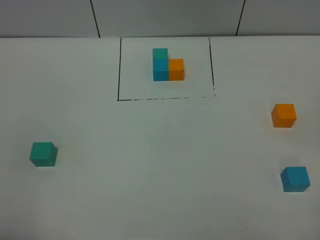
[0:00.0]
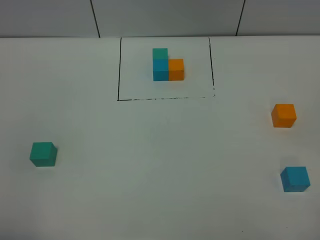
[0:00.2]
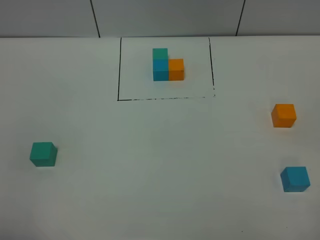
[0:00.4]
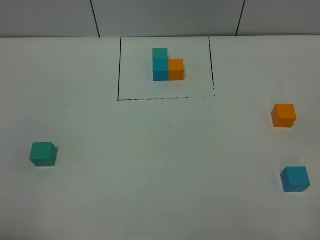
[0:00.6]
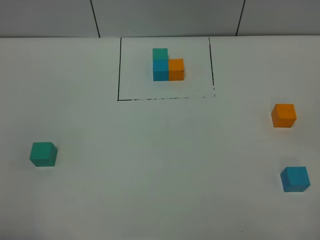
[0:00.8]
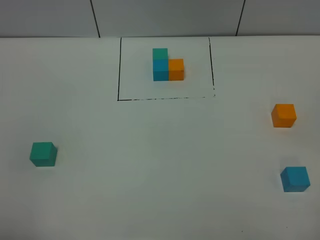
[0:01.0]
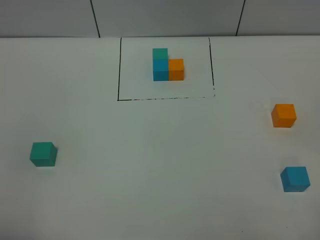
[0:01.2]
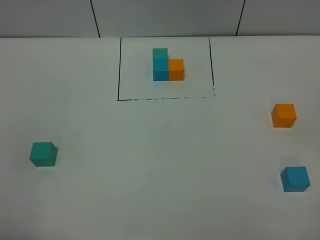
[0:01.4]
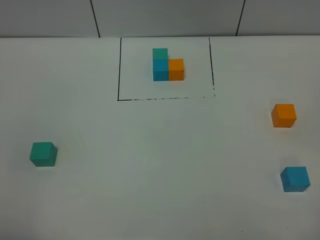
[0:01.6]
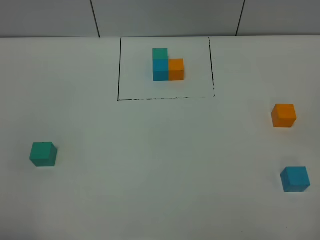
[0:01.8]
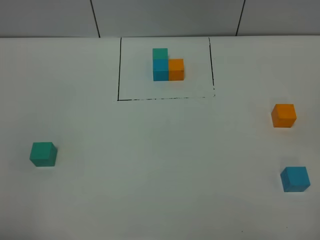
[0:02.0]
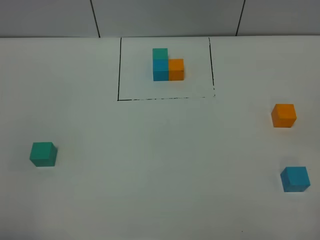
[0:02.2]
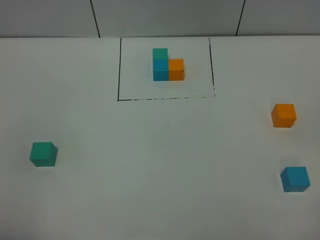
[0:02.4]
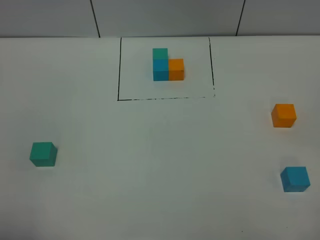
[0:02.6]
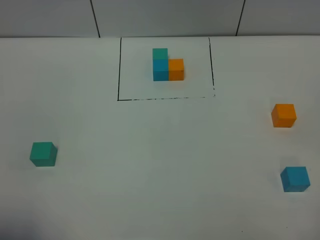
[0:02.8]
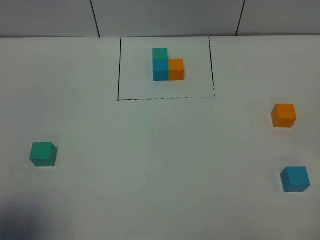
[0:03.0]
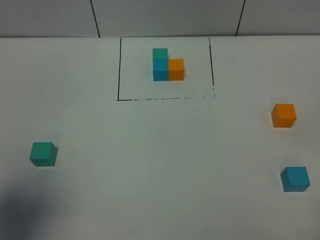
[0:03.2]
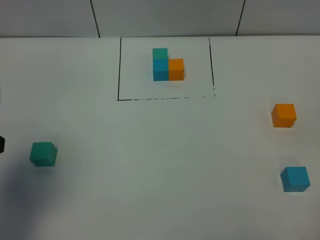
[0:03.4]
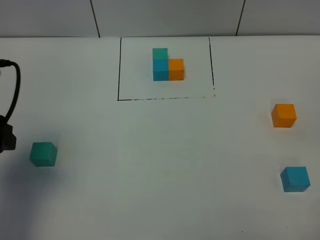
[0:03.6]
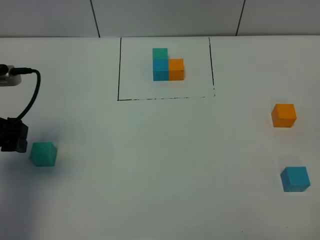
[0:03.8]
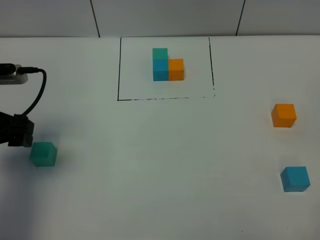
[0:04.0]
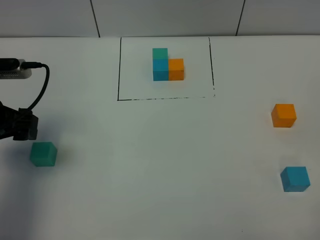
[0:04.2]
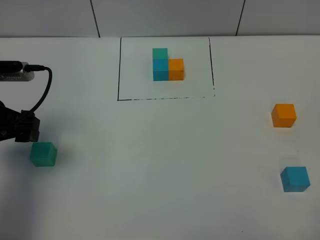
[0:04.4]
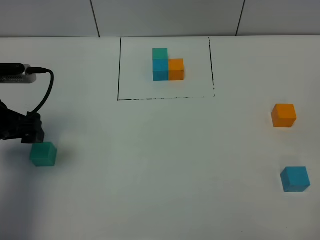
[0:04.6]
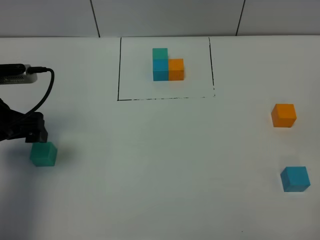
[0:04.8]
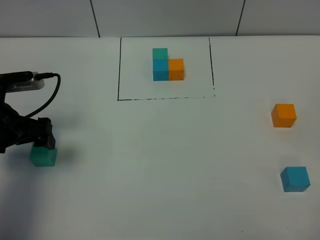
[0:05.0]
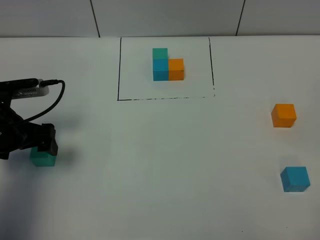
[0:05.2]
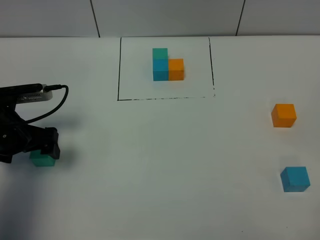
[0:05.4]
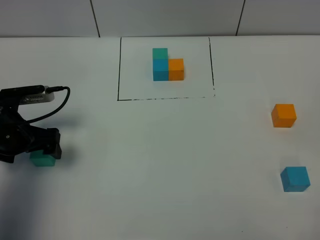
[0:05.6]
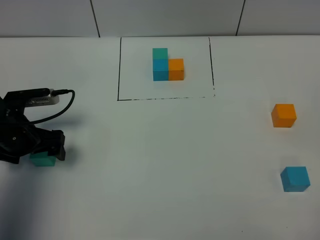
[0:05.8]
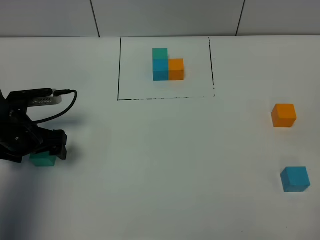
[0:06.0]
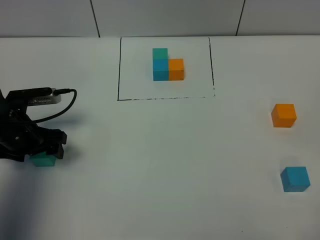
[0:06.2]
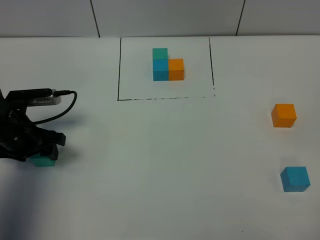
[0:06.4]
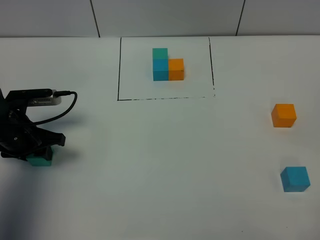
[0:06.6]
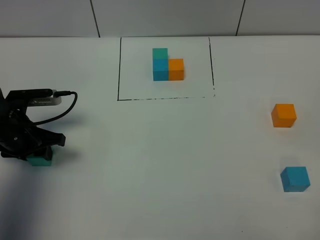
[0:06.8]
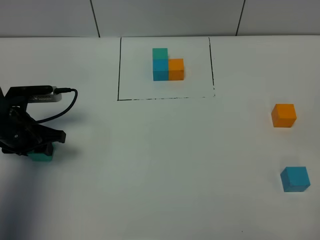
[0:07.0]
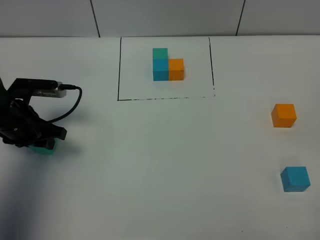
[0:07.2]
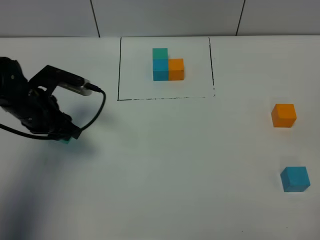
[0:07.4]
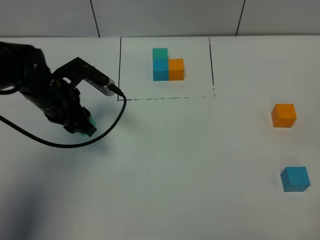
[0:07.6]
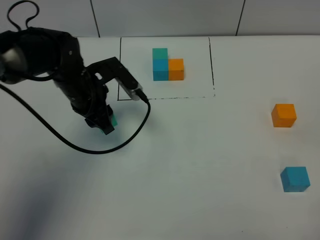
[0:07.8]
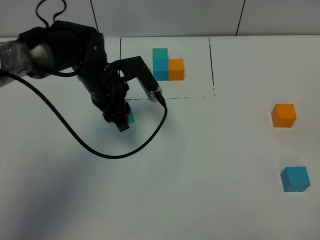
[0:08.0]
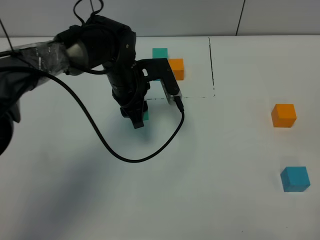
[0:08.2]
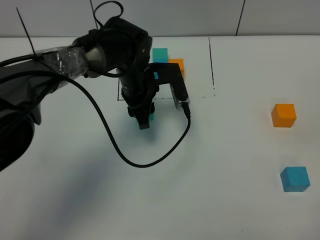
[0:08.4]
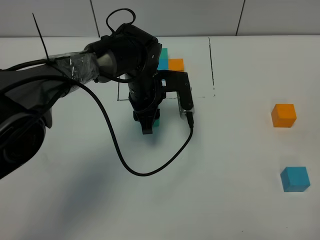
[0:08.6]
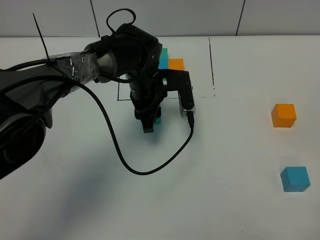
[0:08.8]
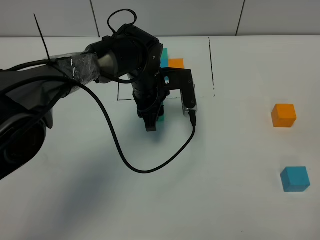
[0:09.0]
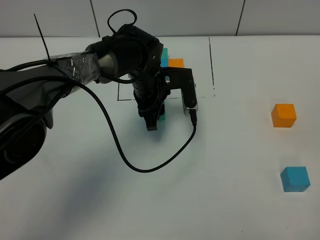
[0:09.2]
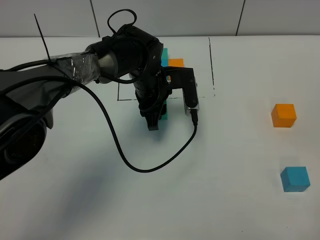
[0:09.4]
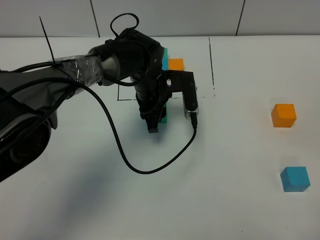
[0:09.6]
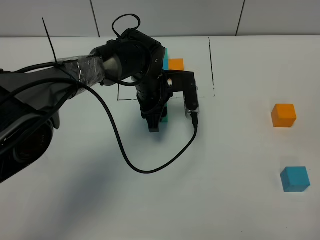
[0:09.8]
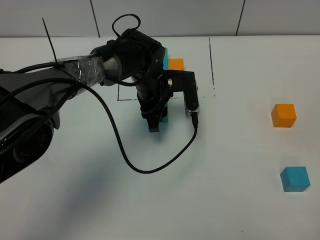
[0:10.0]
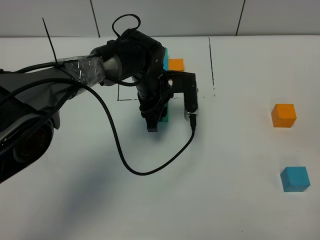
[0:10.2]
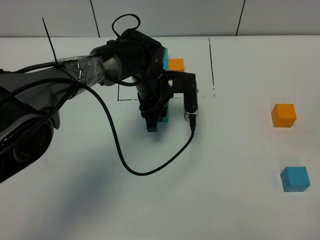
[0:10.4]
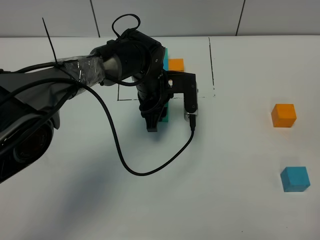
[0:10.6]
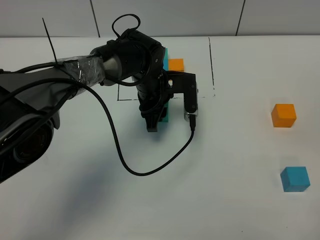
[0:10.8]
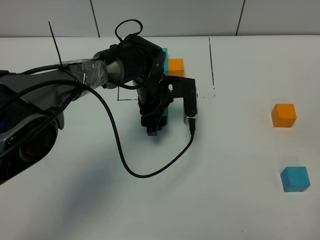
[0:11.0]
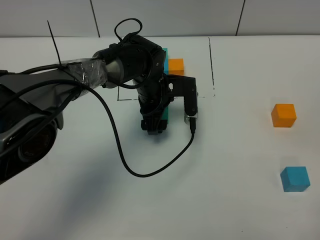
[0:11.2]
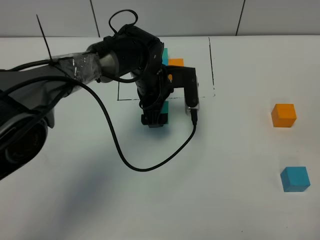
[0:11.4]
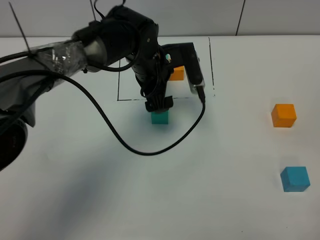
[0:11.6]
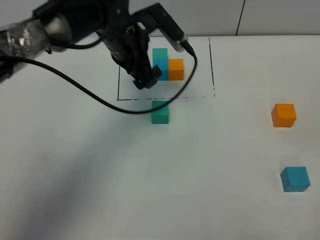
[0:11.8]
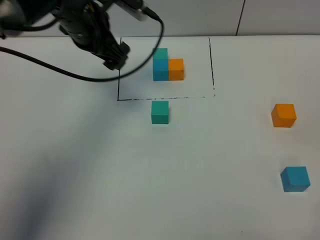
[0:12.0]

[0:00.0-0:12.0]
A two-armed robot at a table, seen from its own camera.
Task of the whole recording: According to the building block template in front, assemble the scattered blocks together.
Step, 0:00.0 to 0:11.0: Put the green build block in the center of the table.
0:00.0 to 0:01.6: The two grippers keep their place.
0:01.6 to 0:03.0: The left gripper travels forward by about 10 cm.
0:03.0 to 0:04.4: The left gripper moves forward and downward, some 20 cm.
0:04.4 to 0:06.0: The left gripper travels downward by approximately 10 cm.
0:06.0 to 0:07.6: The left gripper goes approximately 10 cm to the right, and closes up.
0:07.6 to 0:09.0: The left gripper goes approximately 15 cm to the right.
0:09.0 to 0:10.4: The grippers make only small movements.
0:10.4 to 0:12.0: The left gripper travels upward and to the left by approximately 20 cm, and opens its fingers.

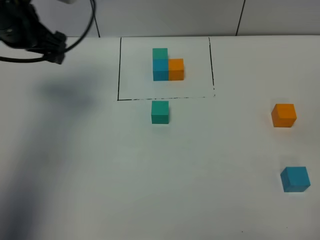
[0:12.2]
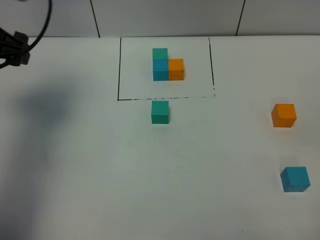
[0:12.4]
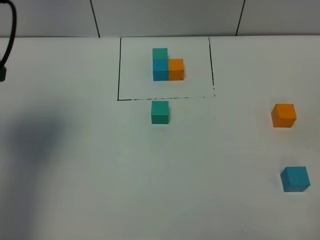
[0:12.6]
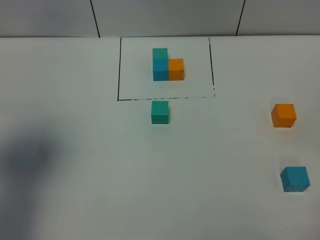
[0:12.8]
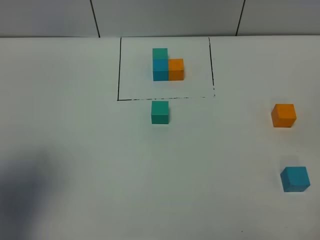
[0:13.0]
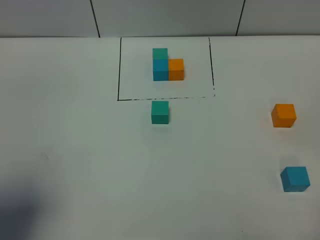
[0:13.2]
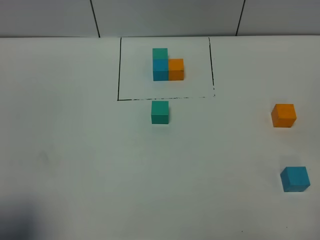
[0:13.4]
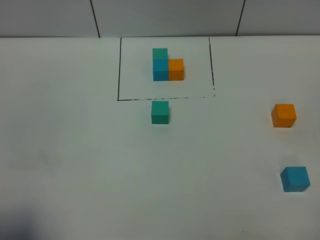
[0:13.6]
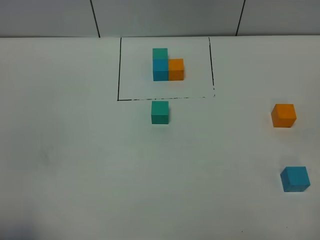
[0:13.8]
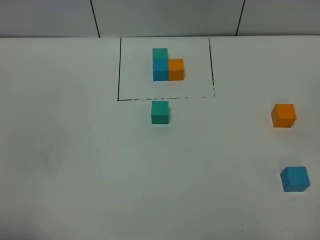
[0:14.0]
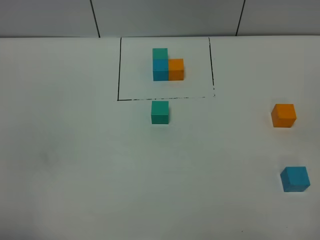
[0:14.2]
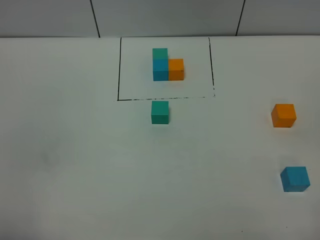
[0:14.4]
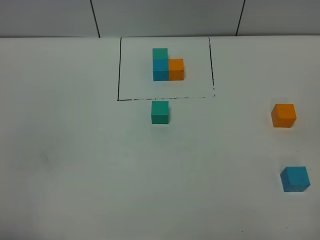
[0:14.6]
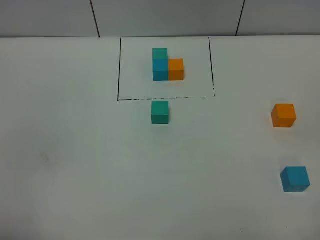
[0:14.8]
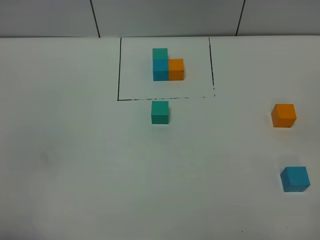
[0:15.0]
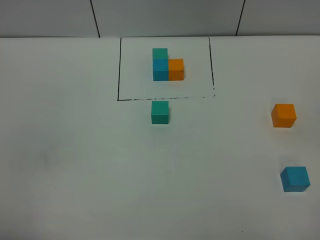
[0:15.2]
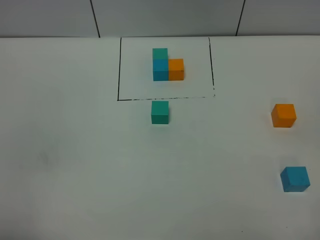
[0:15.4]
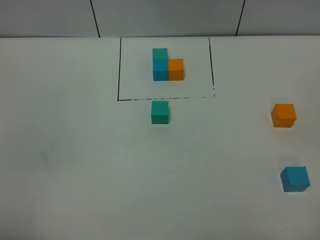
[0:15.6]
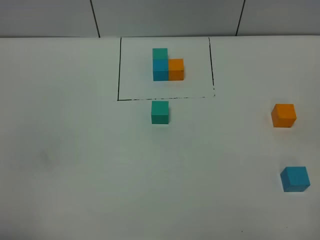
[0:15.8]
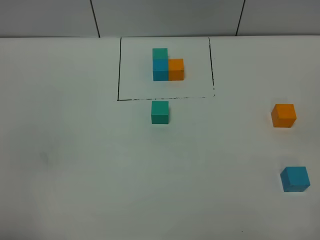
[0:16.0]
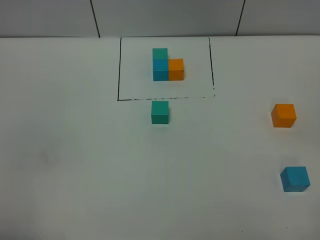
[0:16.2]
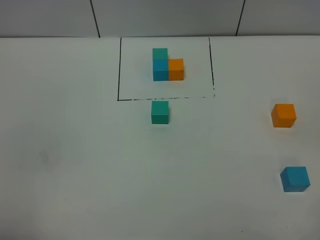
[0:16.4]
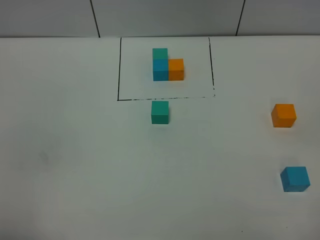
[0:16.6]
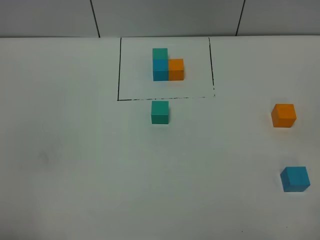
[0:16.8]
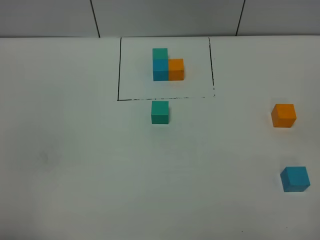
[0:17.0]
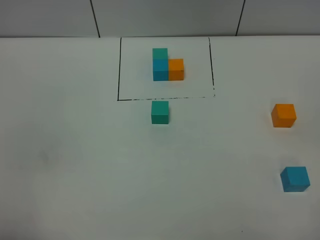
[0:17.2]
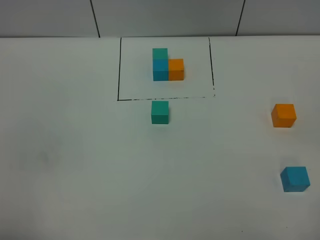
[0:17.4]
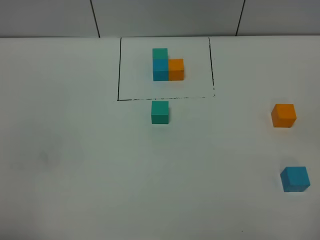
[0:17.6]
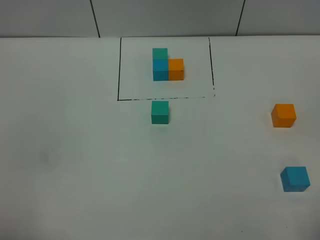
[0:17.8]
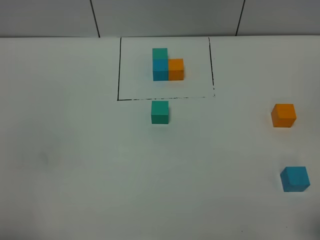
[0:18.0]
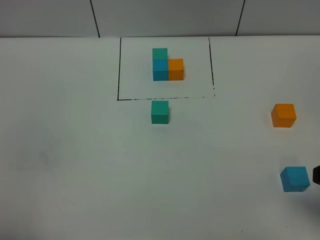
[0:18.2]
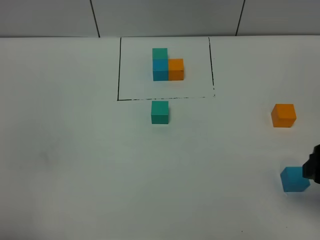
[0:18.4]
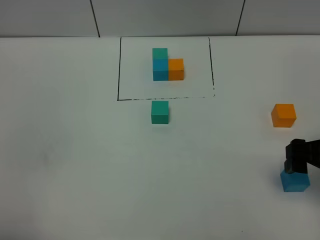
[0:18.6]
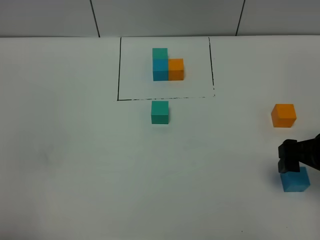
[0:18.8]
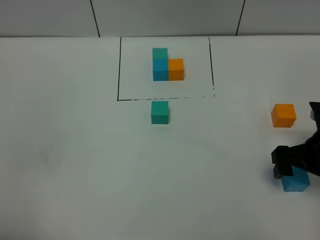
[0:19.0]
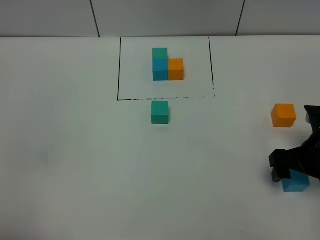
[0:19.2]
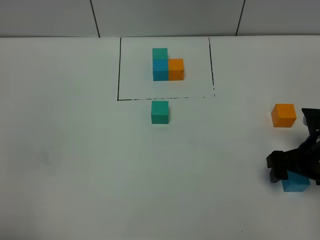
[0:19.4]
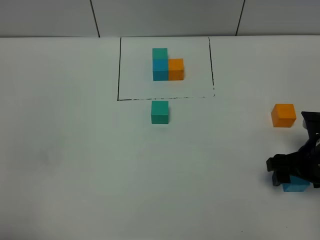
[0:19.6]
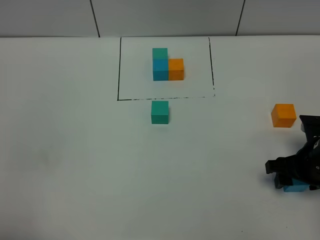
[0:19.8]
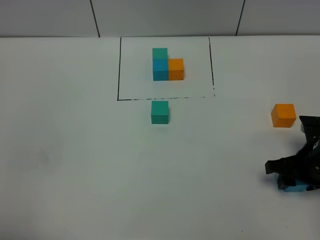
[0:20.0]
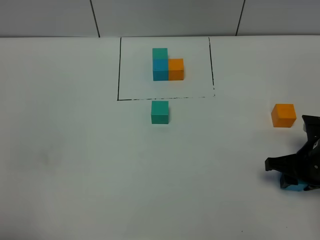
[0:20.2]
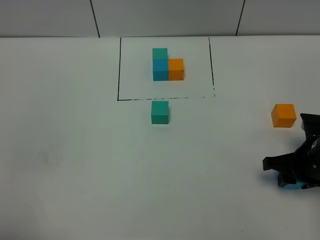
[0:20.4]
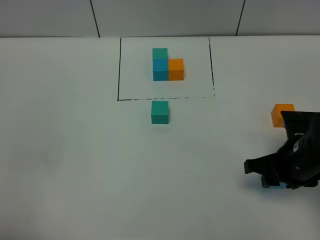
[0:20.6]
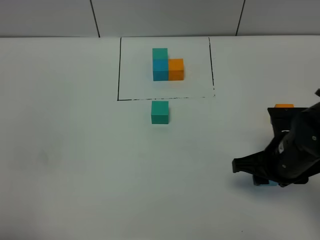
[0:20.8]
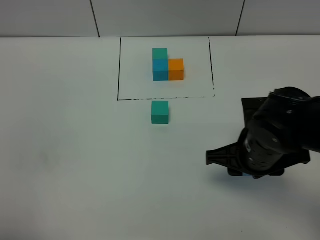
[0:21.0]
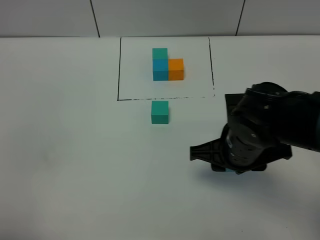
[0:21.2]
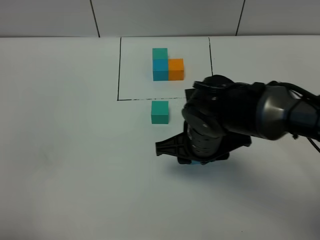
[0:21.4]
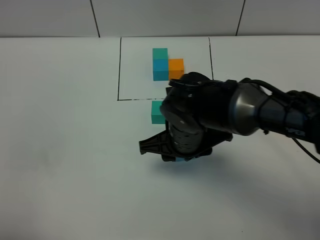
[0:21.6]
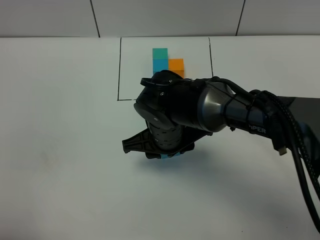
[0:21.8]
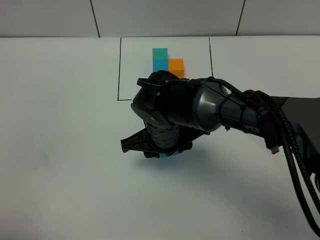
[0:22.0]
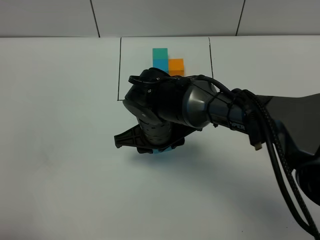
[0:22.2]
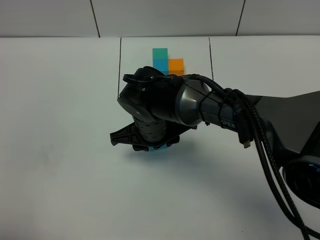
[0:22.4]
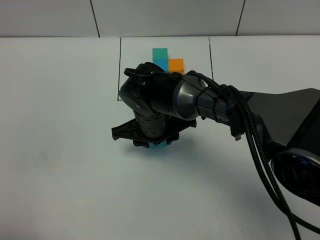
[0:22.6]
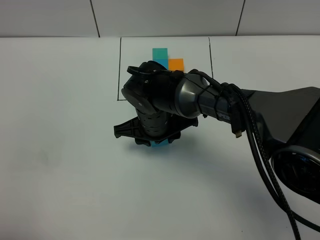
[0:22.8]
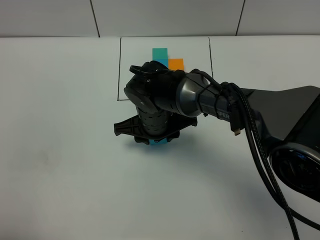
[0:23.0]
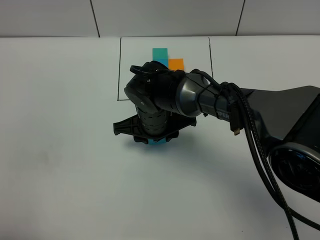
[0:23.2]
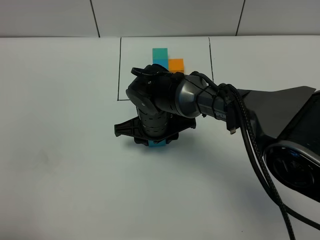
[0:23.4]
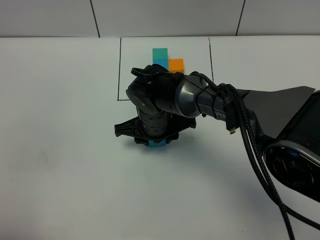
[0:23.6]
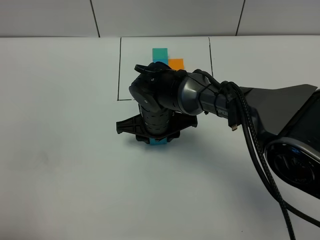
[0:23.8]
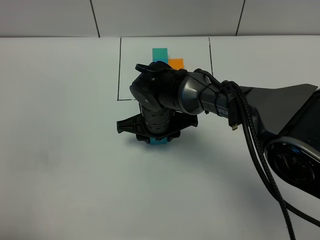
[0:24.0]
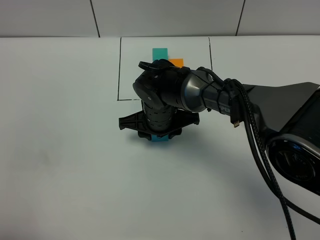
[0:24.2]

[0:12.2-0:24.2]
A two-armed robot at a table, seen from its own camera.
Task of the whole recording: According to the building block template in front, assemble the scattered blocks together.
0:12.2 to 0:13.8: The left gripper moves backward, roughly 35 cm.
0:15.2 to 0:16.6: The two grippers keep their place.
0:16.6 to 0:18.2: The right gripper shifts some 15 cm forward.
0:18.2 to 0:19.8: The right gripper moves downward and forward, some 20 cm, and closes up.
0:19.8 to 0:21.2: The right gripper moves to the left, approximately 15 cm, and closes up.
0:21.2 to 0:22.6: The right gripper is displaced to the left and forward by about 15 cm.
0:22.6 to 0:24.2: There are only small adjustments of the grippers.
